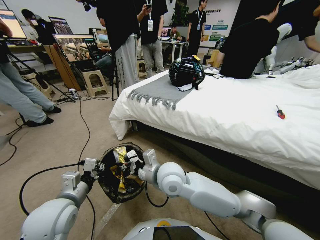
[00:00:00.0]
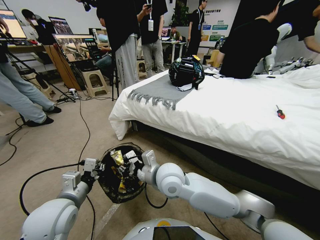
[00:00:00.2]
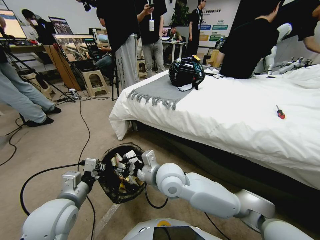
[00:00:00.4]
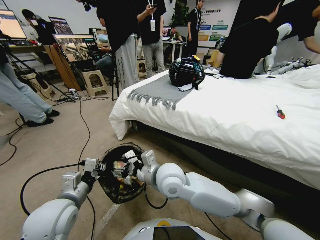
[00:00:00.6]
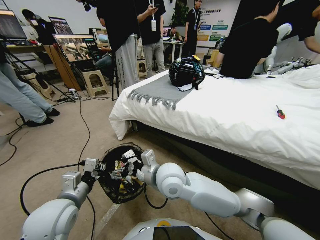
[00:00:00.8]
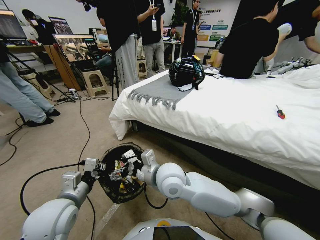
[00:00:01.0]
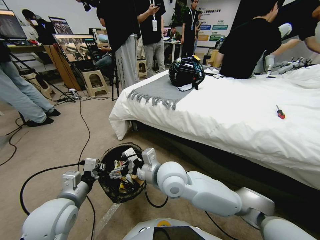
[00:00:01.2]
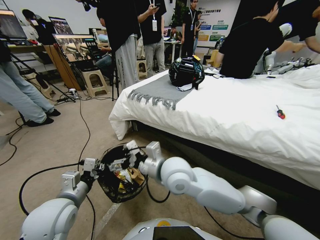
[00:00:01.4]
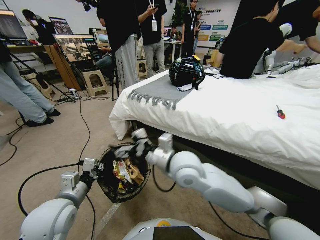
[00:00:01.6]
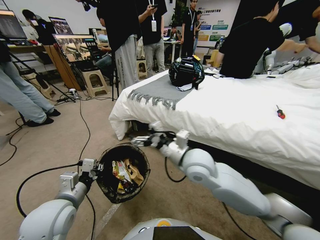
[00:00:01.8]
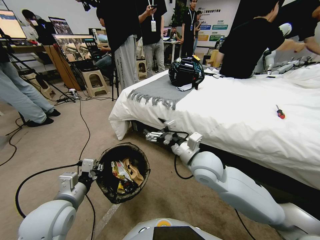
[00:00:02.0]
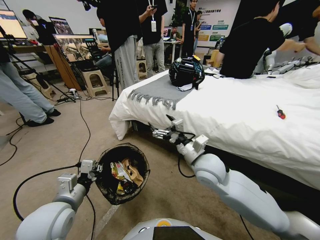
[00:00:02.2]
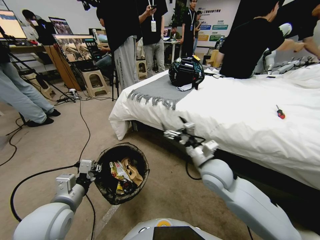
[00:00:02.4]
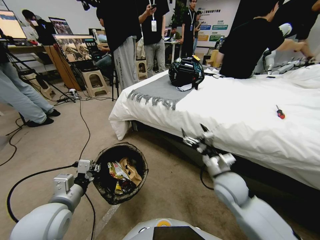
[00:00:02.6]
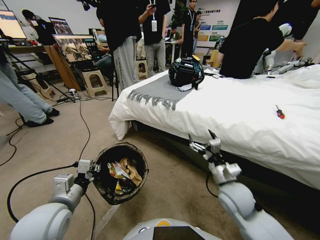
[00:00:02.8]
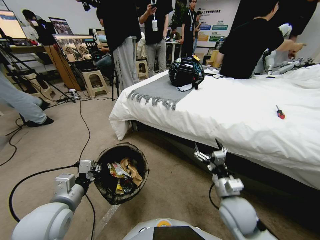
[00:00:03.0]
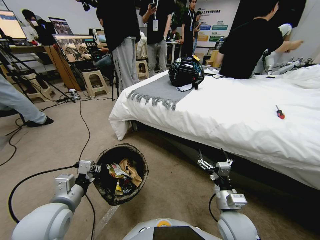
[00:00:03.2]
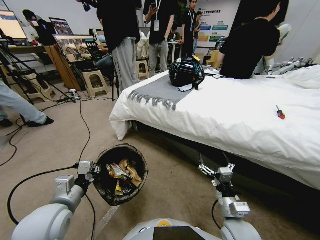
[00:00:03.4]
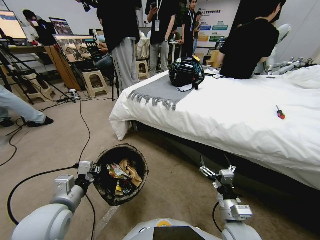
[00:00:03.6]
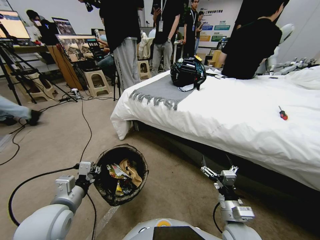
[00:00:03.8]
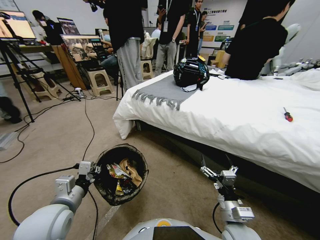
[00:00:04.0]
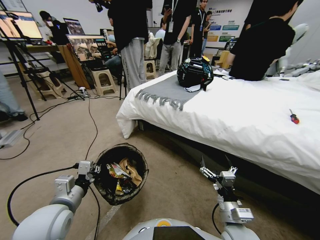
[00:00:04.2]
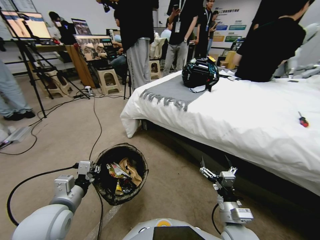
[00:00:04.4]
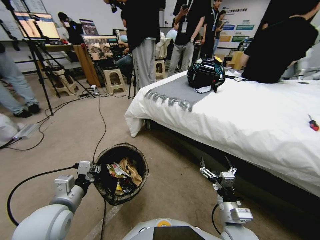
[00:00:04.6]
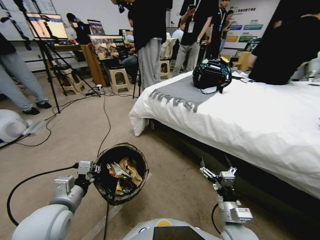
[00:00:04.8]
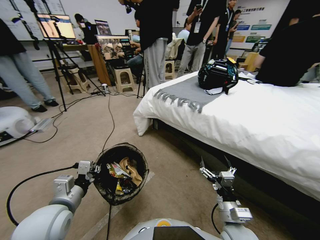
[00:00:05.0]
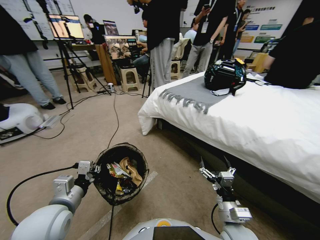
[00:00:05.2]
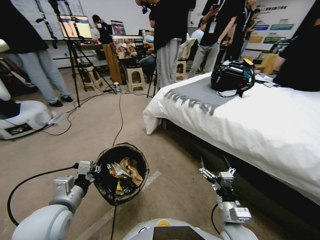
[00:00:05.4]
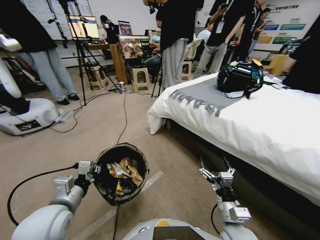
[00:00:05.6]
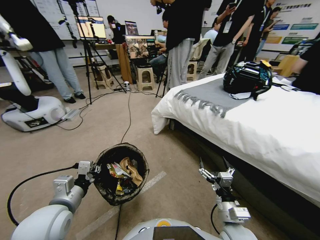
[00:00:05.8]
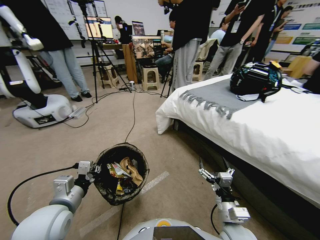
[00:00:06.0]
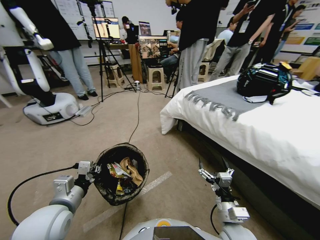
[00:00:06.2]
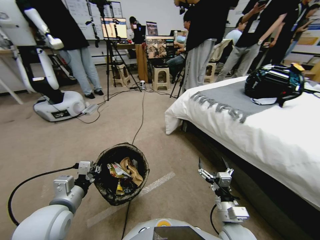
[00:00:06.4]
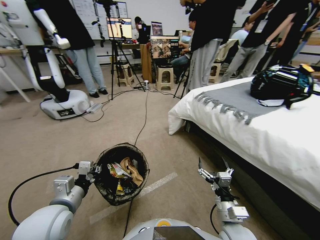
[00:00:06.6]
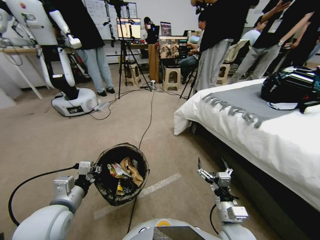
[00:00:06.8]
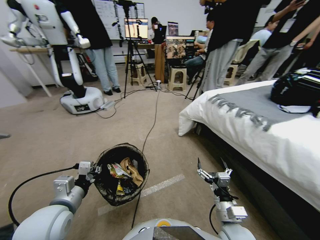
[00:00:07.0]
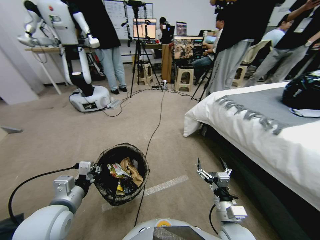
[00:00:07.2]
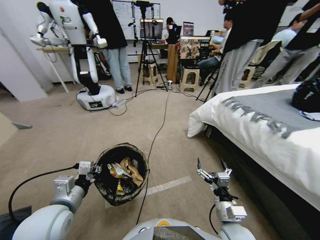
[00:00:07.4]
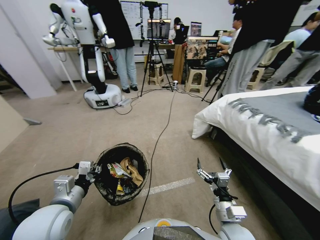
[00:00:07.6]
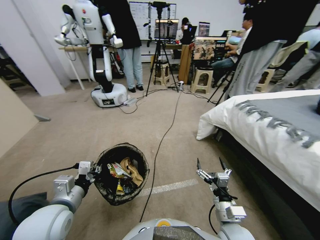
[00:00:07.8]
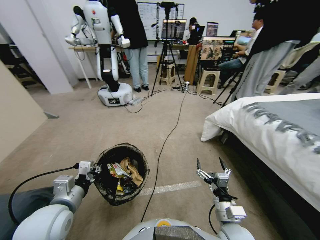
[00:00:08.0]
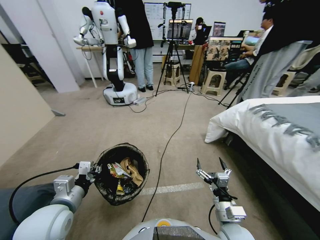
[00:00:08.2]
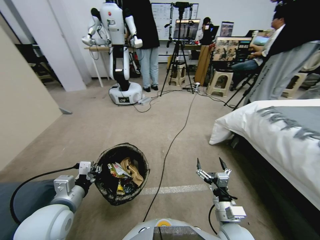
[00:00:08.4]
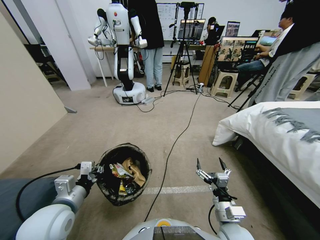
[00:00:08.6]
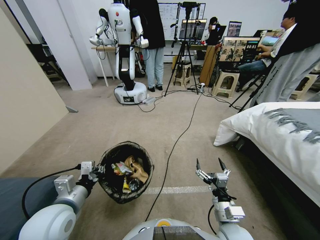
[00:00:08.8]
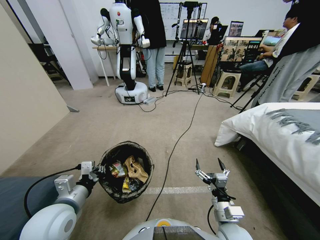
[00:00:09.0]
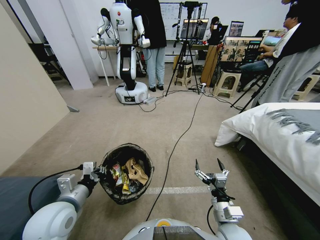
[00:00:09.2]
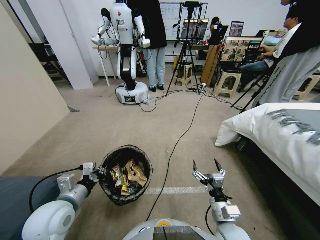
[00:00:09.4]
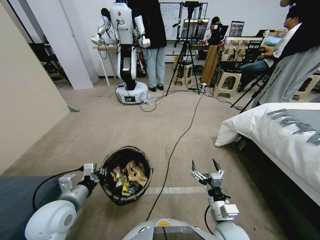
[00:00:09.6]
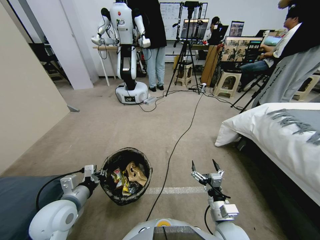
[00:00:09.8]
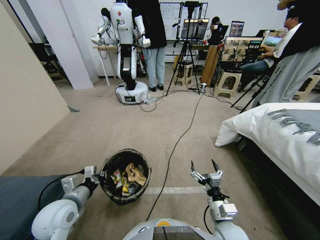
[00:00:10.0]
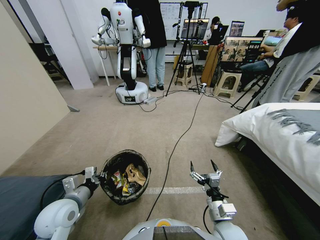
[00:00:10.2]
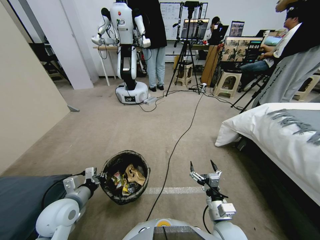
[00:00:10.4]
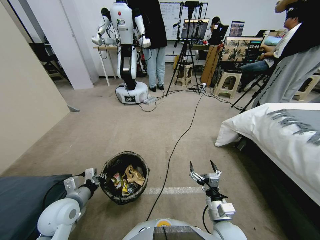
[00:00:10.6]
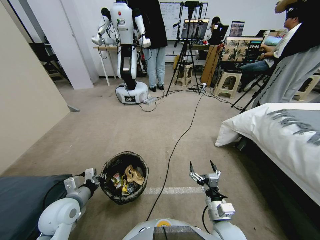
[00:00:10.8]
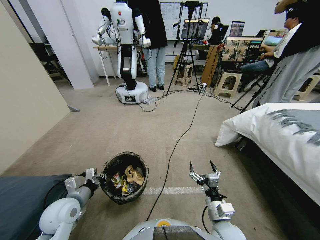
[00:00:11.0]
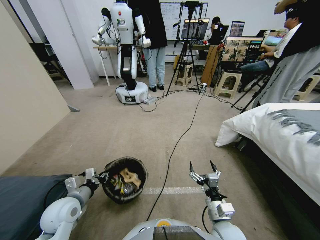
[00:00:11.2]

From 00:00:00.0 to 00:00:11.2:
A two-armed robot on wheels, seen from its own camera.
Task of the whole recording: Pick up the trash bin, then pick up the garbage from the floor and place it into the trash bin.
From 00:00:00.0 to 00:00:01.6: The right gripper moves to the right, about 10 cm, and opens up.
From 00:00:01.6 to 00:00:03.2: The right gripper goes roughly 25 cm downward, backward and to the right.
From 00:00:09.6 to 00:00:11.2: The left gripper shifts by about 5 cm, and opens.

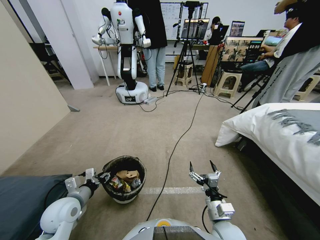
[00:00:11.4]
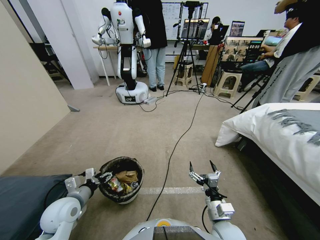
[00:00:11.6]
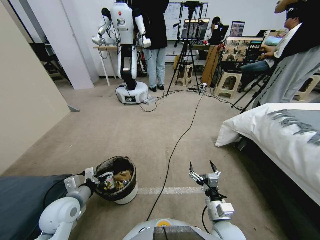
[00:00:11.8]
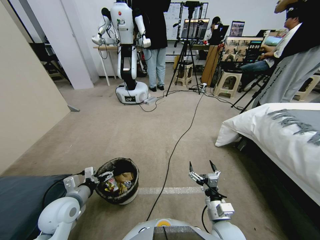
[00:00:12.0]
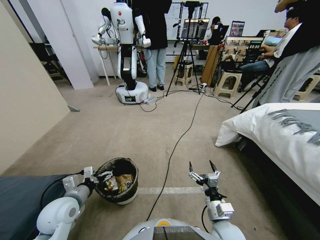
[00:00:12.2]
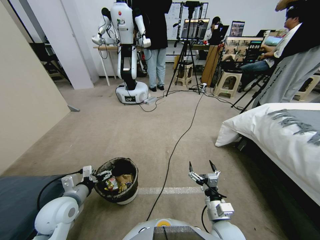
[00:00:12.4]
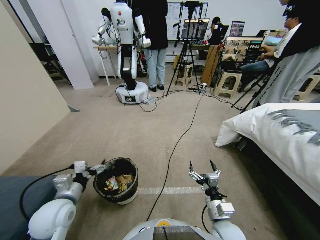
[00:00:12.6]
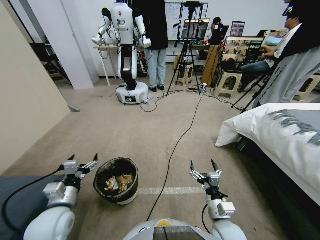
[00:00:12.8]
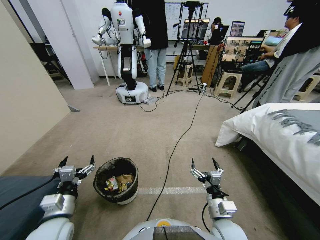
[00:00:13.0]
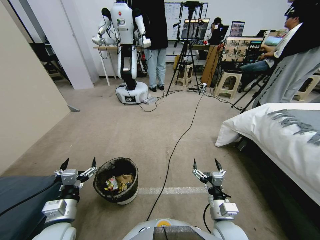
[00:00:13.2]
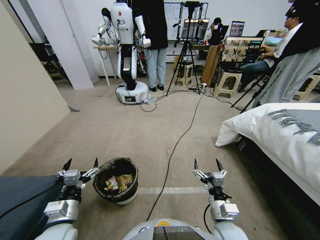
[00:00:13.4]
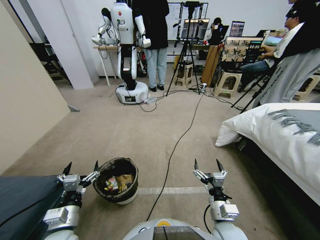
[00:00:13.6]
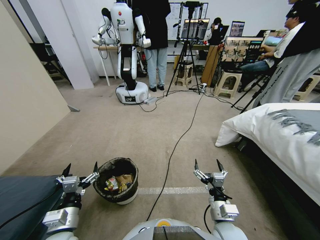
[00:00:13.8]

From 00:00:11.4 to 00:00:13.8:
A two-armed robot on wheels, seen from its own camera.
Task of the whole recording: Pick up the trash bin, then pick up the garbage from the floor and place it into the trash bin.
From 00:00:12.6 to 00:00:13.8: The left gripper goes approximately 5 cm backward.
